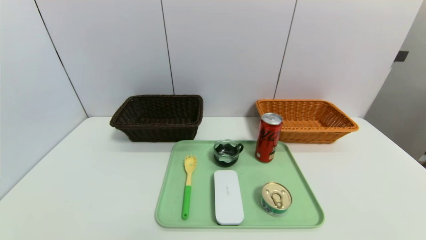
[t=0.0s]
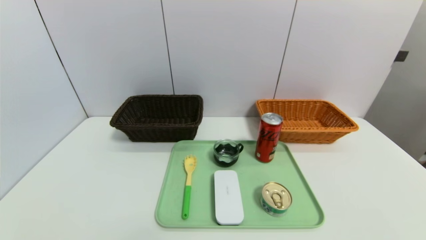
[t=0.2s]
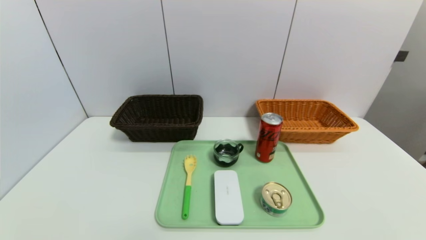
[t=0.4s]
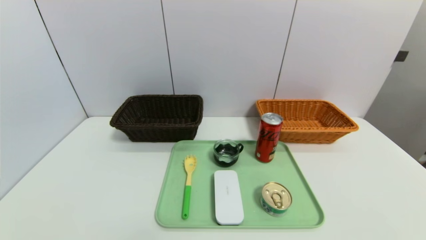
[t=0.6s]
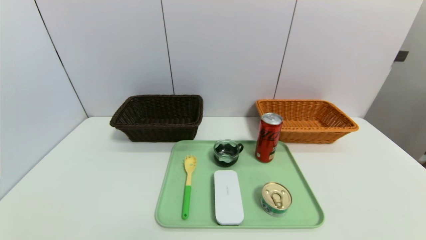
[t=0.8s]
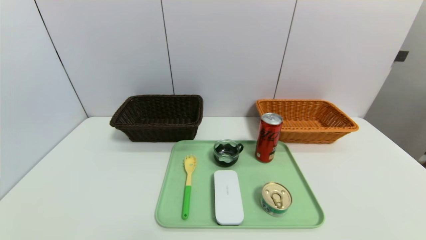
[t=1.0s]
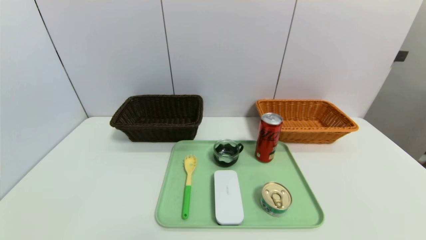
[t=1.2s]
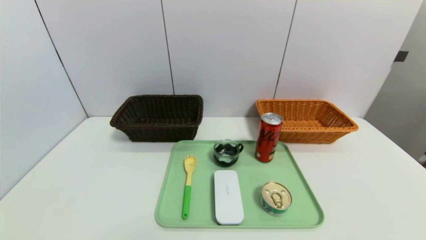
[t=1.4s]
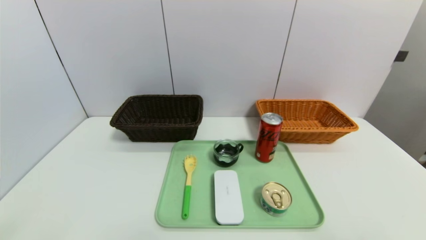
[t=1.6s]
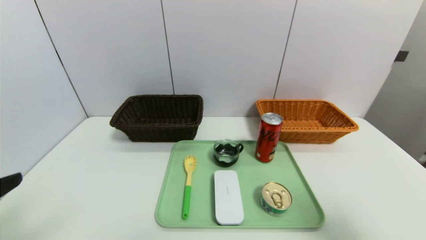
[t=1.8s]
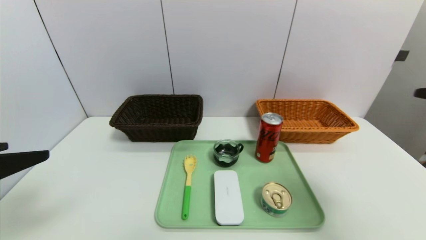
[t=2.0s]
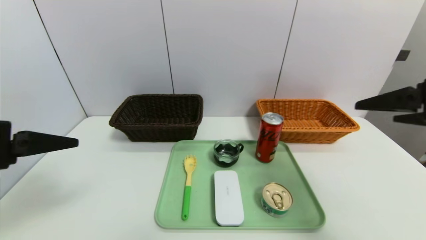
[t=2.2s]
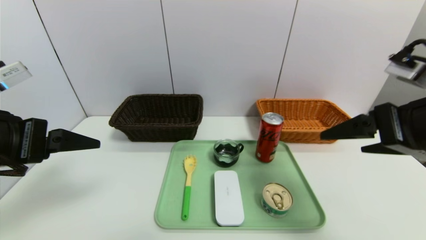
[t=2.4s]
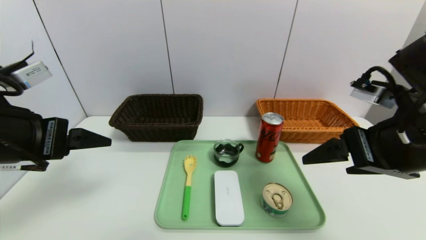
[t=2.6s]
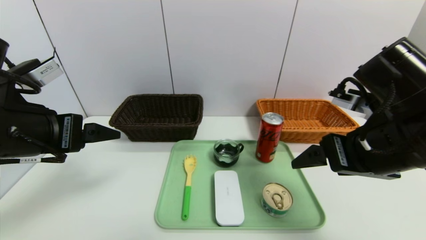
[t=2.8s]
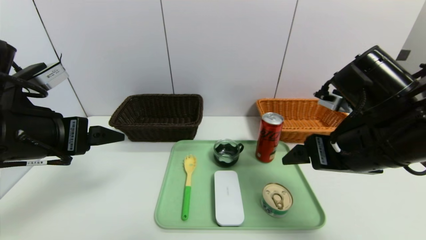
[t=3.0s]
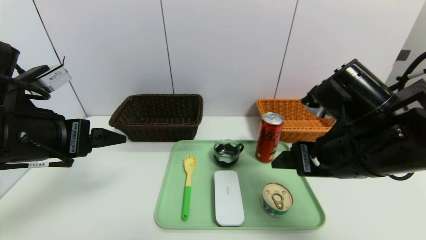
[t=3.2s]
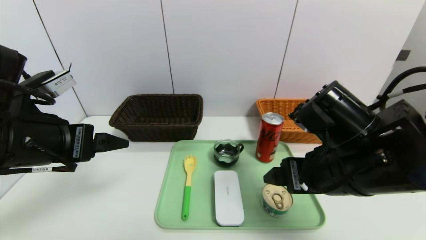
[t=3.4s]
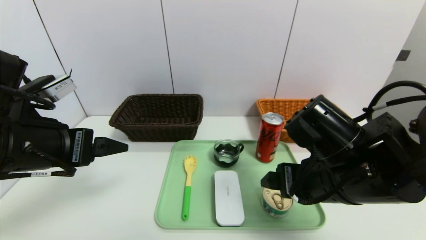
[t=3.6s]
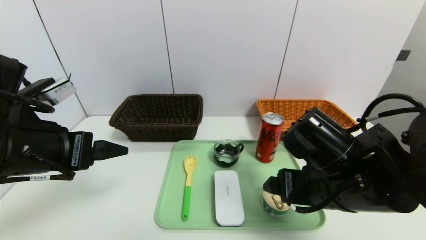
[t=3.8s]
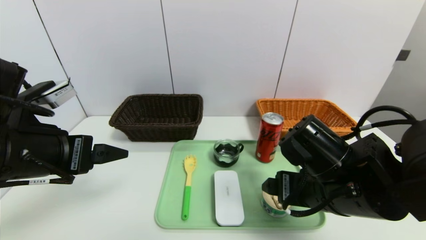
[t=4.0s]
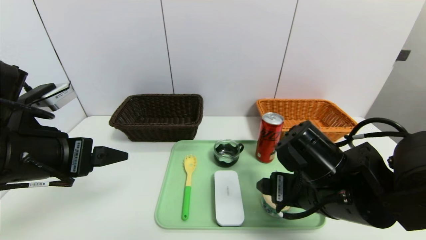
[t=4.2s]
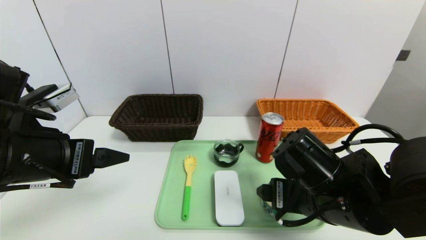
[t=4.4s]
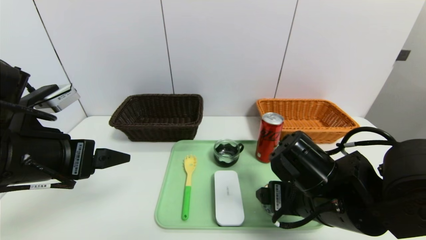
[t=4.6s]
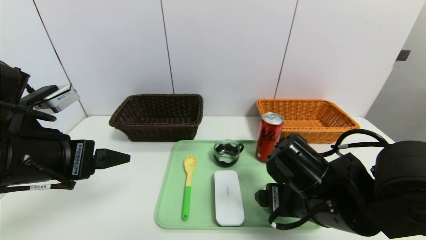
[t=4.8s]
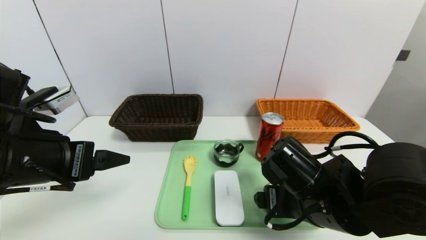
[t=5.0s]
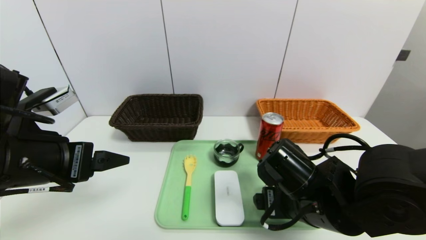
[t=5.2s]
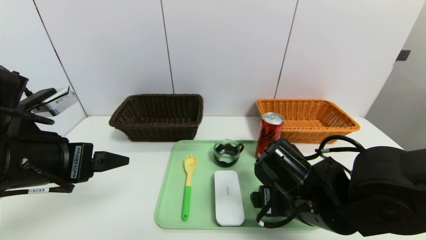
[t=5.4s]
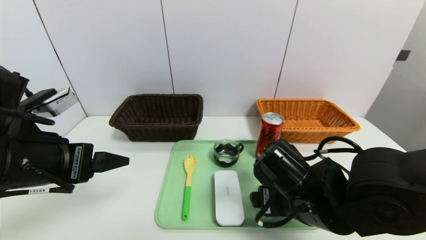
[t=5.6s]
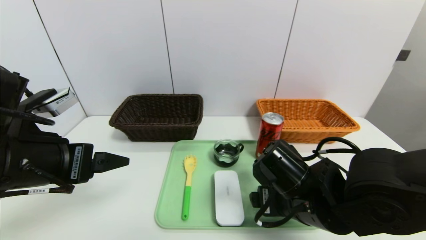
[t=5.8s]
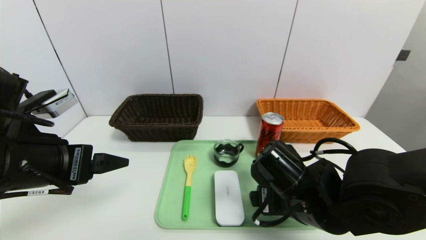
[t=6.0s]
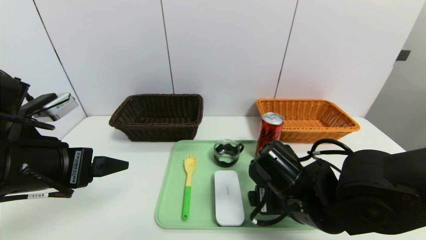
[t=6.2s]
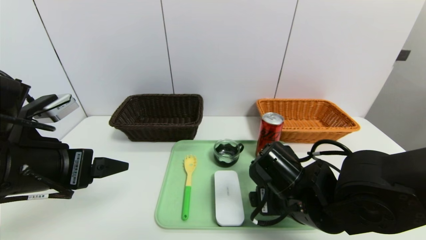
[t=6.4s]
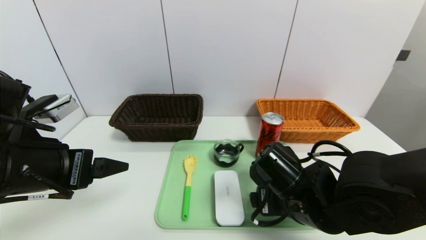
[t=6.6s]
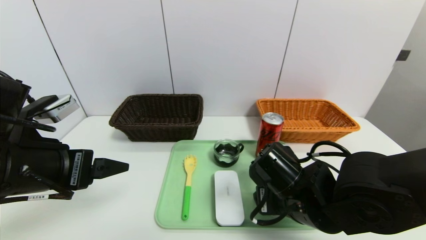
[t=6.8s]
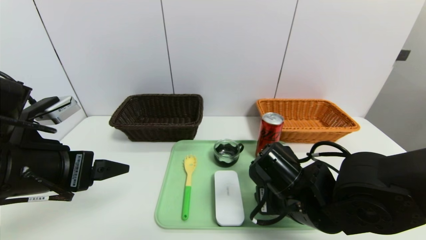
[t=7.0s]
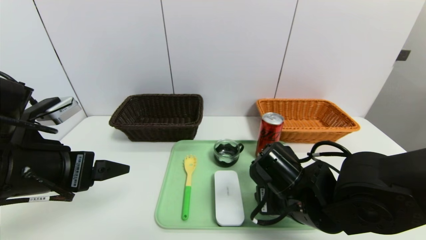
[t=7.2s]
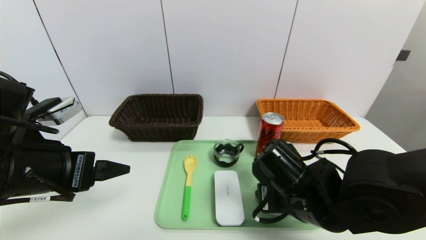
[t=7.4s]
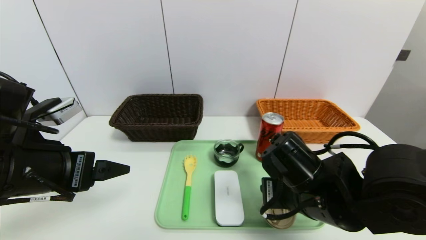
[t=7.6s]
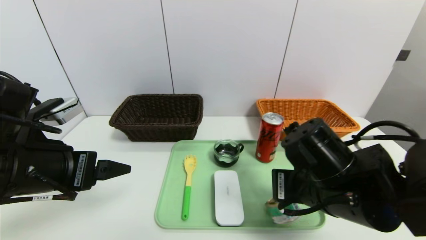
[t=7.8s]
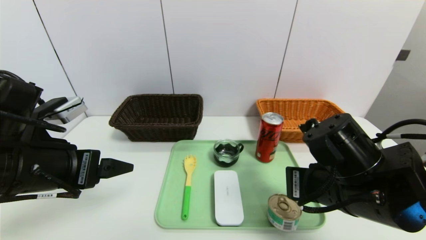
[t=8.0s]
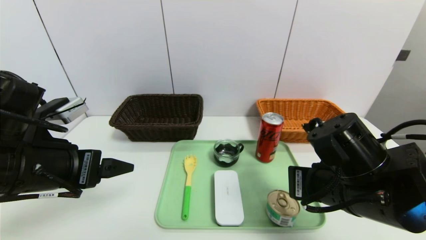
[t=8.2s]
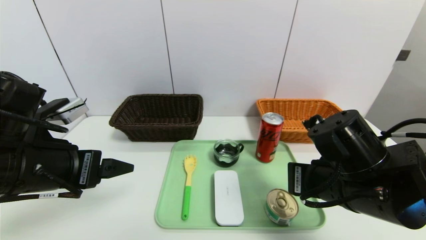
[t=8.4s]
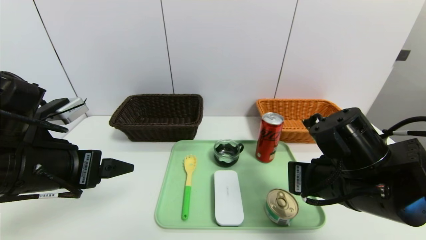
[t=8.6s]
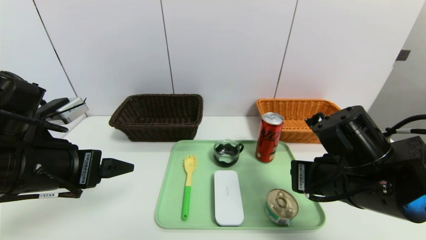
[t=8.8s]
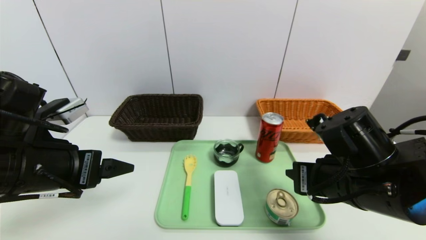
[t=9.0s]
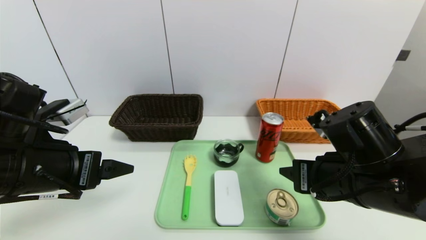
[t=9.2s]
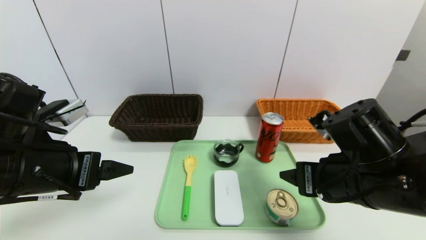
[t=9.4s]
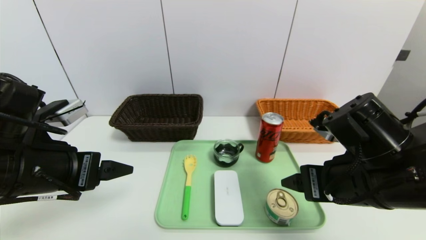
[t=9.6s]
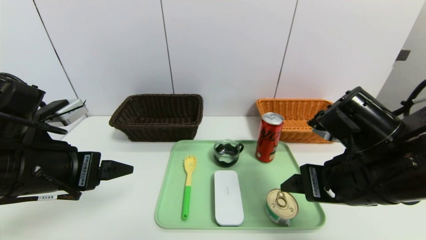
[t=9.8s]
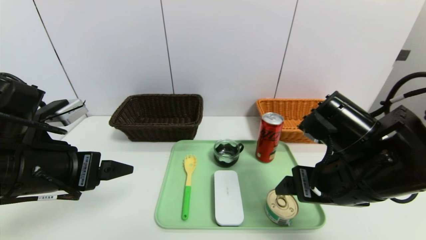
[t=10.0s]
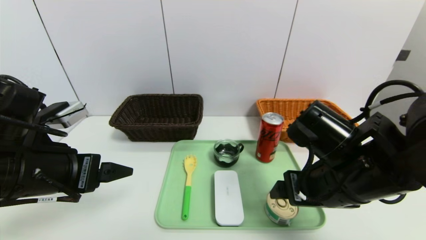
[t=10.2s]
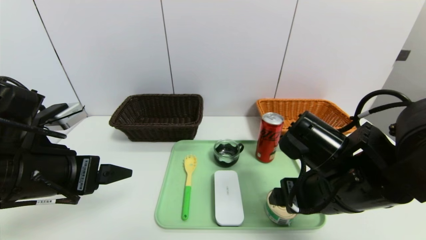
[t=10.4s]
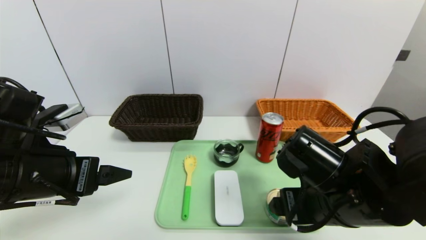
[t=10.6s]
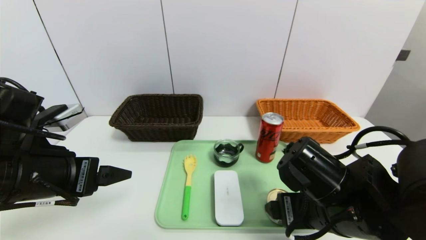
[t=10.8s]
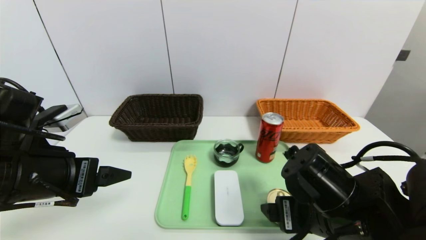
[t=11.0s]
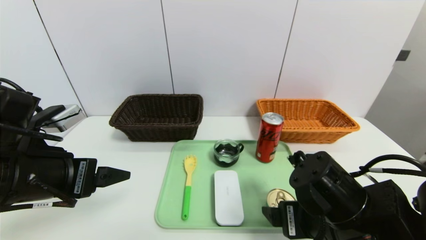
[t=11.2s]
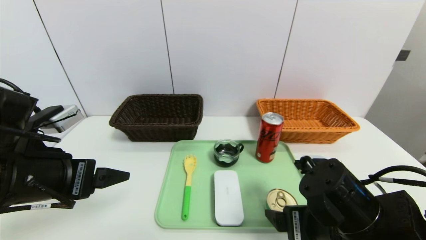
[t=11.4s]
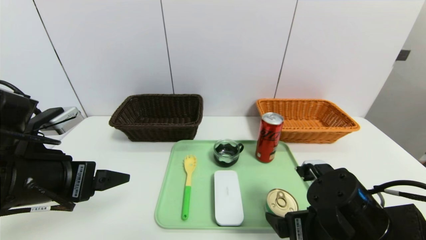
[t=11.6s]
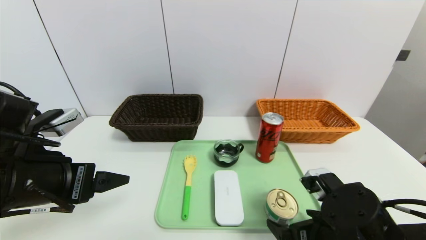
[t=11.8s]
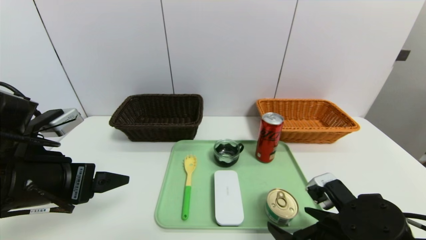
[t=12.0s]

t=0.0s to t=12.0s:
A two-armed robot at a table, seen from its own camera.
Task of the whole recording: place the food in the right basket with the right gripper, and place the non food items in the left basket with the left gripper.
t=1.6s to t=3.0s: The left gripper shifts some 20 cm forward; the right gripper heads forward and to the left, covering roughly 25 cm.
t=3.0s to t=4.4s: The right gripper travels downward by some 10 cm.
t=4.4s to t=6.0s: The grippers stay close to where they were, moving slightly.
t=6.0s to t=7.6s: The right gripper closes its fingers.
t=7.6s to t=9.0s: The right gripper changes place by some 5 cm.
t=9.0s to t=10.4s: The right gripper opens up.
t=10.4s to t=12.0s: The right gripper is displaced downward and backward by some 10 cm.

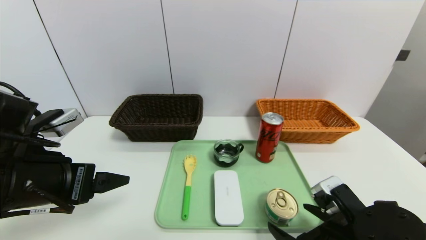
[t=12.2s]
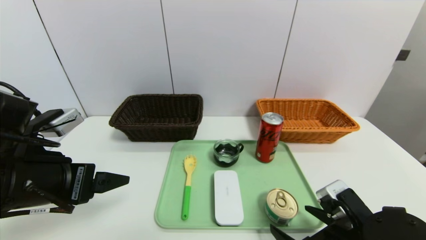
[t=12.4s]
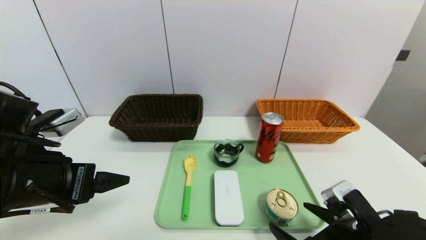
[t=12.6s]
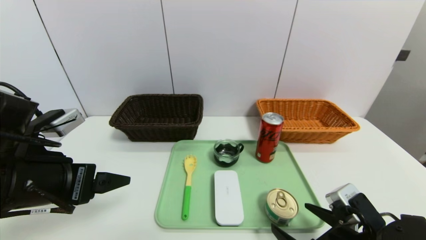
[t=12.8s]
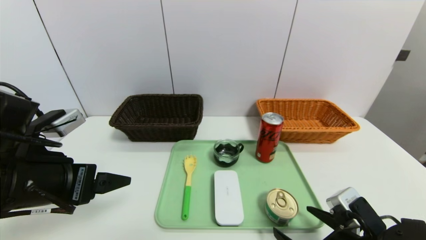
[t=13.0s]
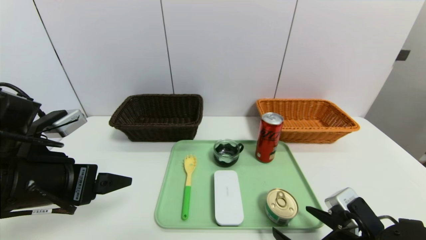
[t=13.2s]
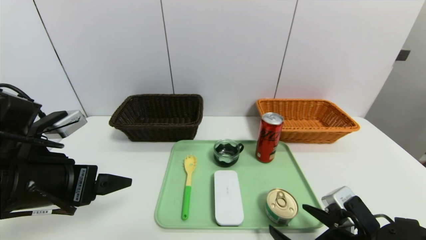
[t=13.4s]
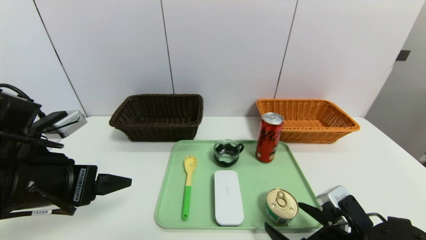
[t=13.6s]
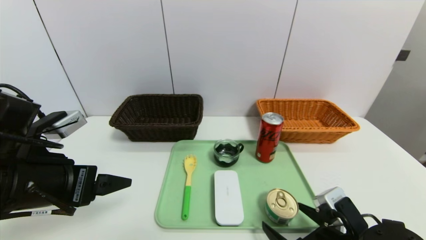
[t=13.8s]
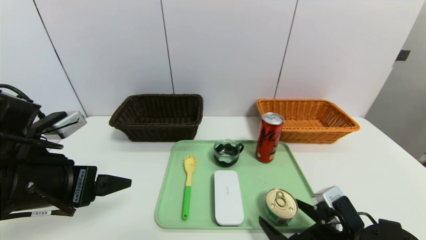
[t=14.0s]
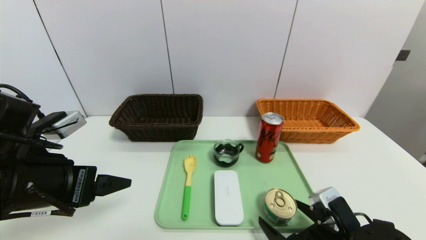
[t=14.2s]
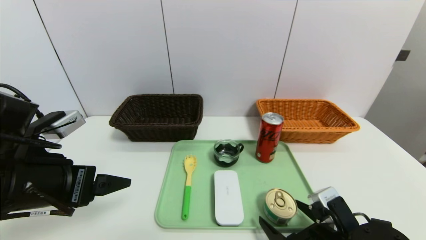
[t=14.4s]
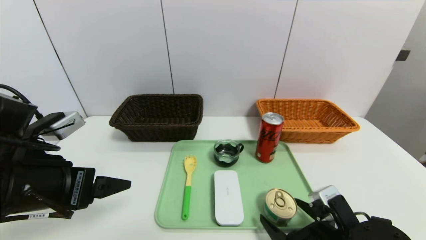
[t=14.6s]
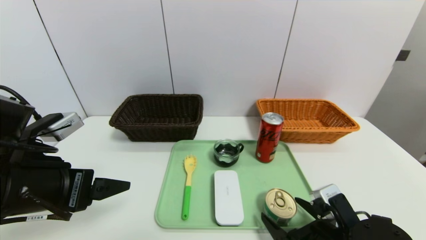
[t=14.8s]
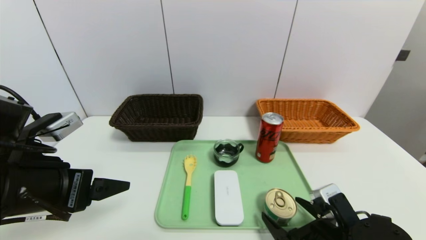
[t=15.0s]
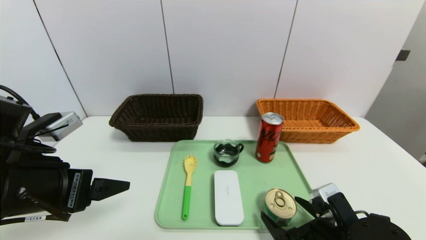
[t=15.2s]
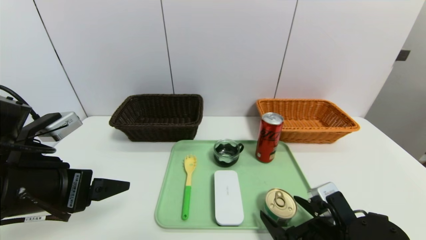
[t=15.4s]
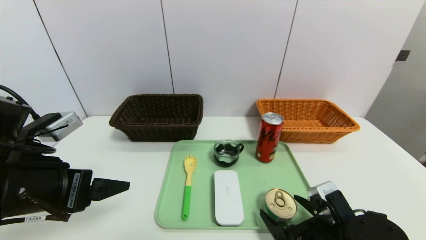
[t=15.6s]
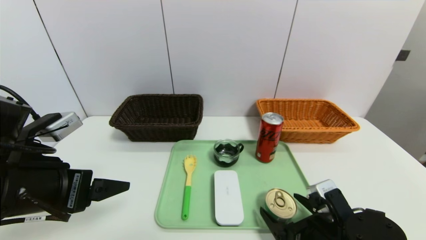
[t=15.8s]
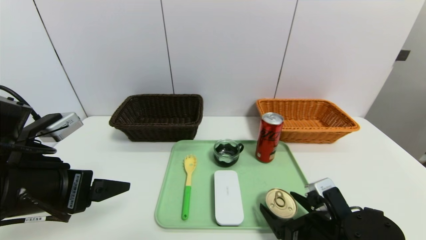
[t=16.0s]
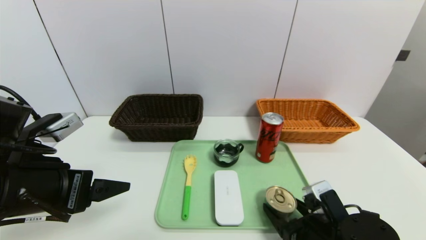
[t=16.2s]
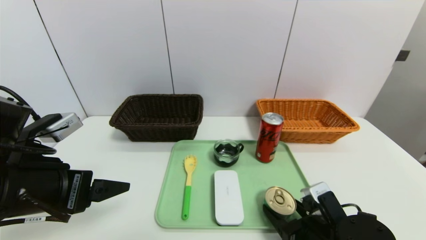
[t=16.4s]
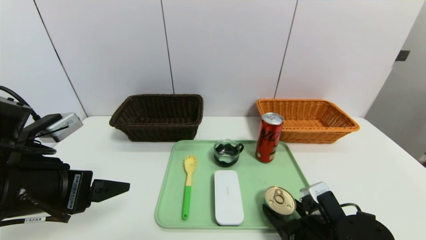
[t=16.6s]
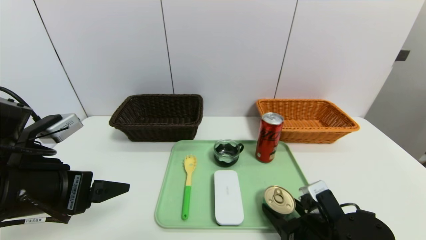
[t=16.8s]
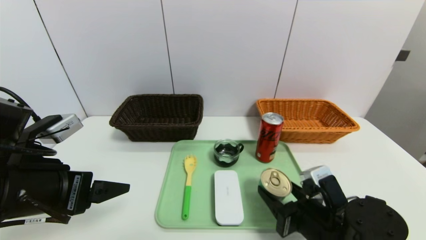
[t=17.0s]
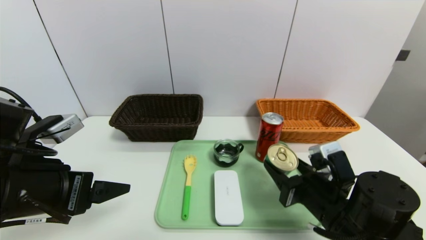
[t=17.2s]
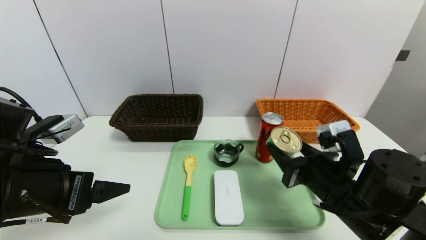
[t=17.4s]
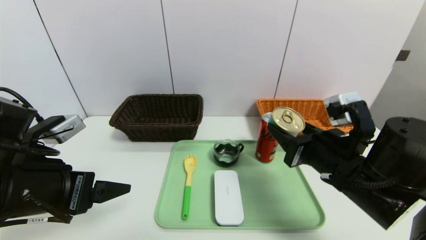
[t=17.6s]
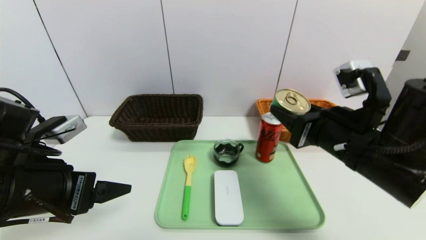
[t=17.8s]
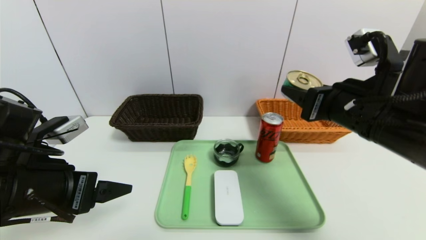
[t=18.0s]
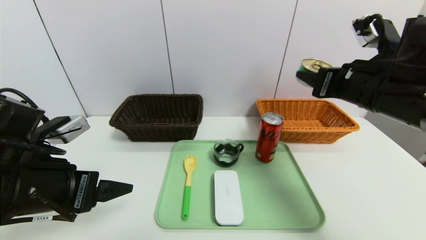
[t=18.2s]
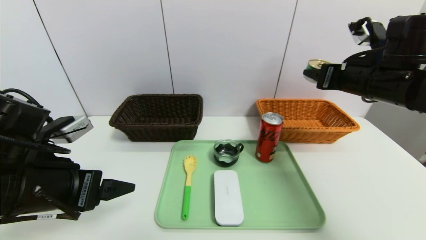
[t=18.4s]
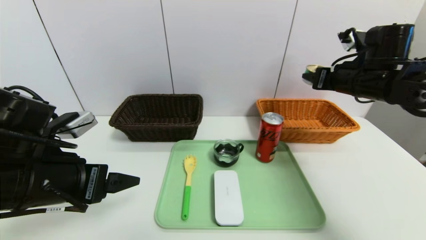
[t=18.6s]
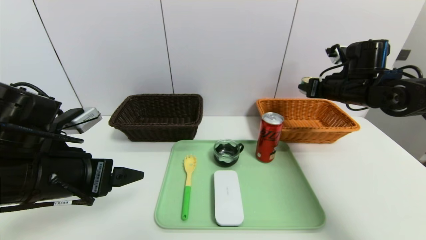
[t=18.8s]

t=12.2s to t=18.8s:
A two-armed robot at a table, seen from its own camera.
Task of the whole recording: place the food in the right basket with the right gripper, and place the non food items in the left basket with the left gripper.
t=12.2s to t=15.4s: There are only small adjustments of the grippers.
t=15.4s to t=17.2s: The right gripper moves approximately 5 cm, and closes its fingers.
t=17.2s to t=18.8s: The right gripper shifts approximately 25 cm forward, upward and to the right.
